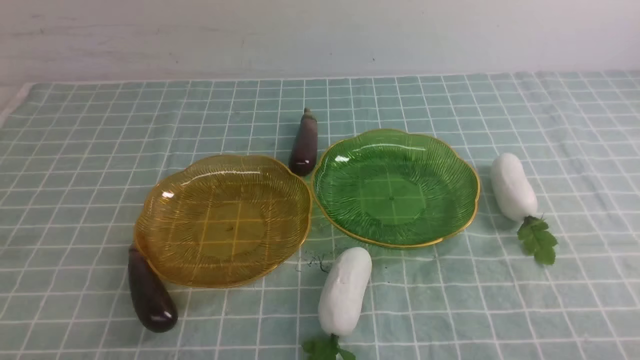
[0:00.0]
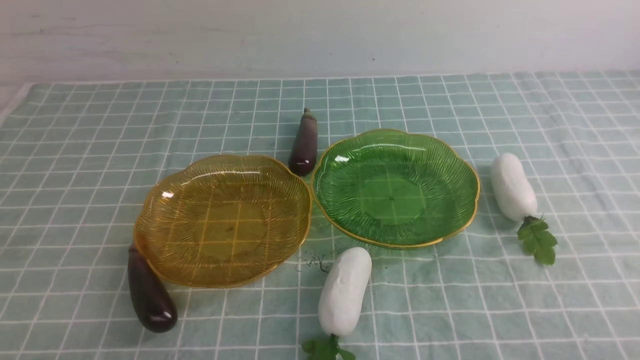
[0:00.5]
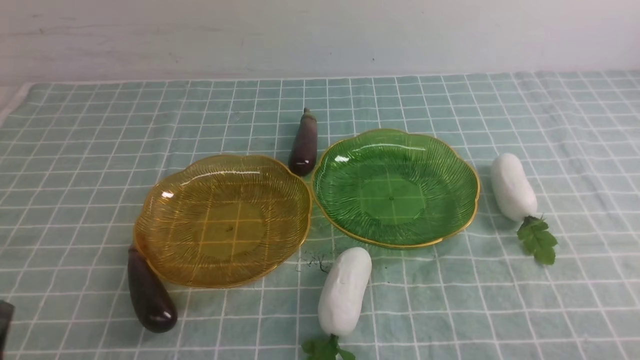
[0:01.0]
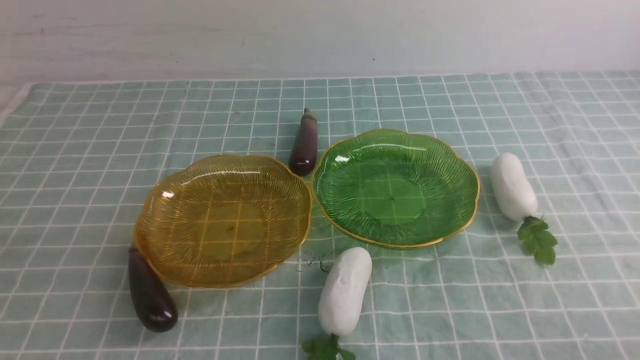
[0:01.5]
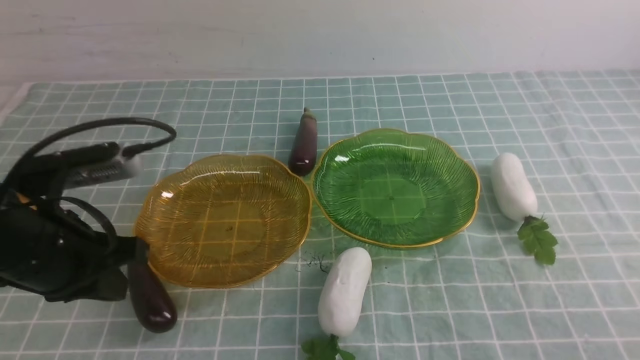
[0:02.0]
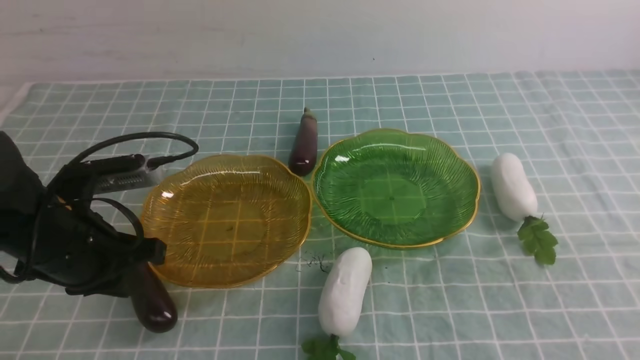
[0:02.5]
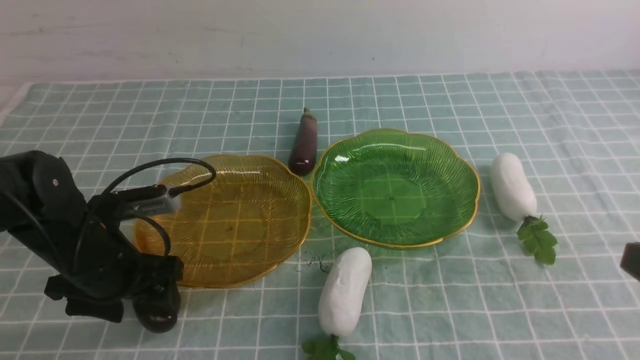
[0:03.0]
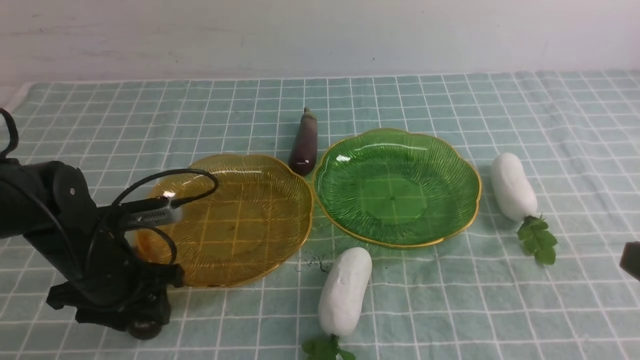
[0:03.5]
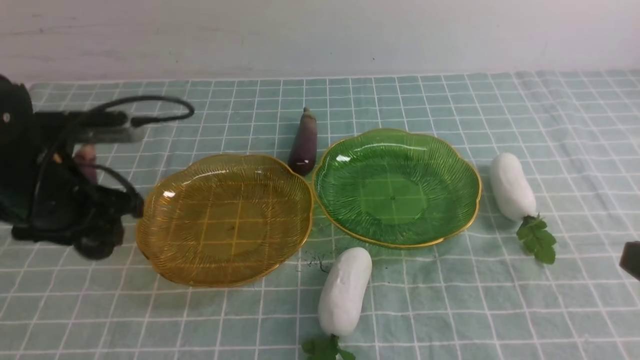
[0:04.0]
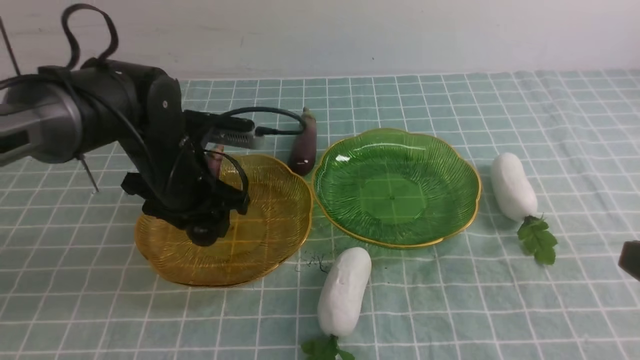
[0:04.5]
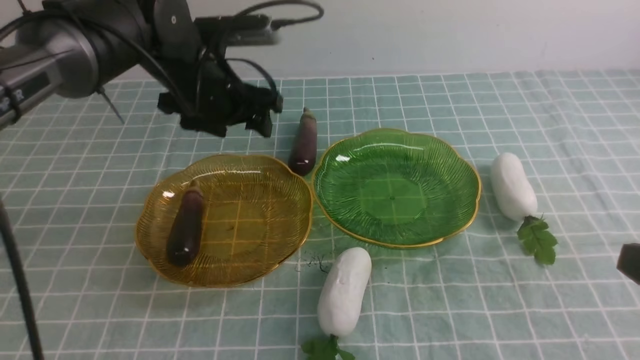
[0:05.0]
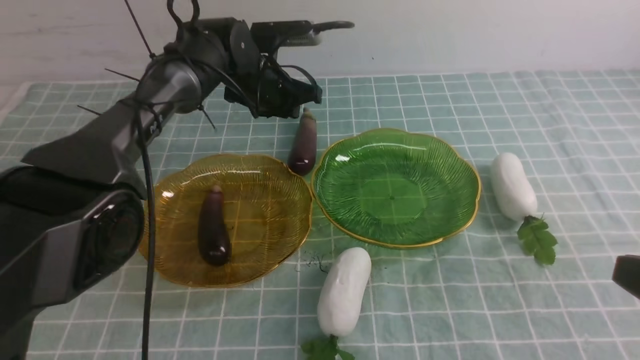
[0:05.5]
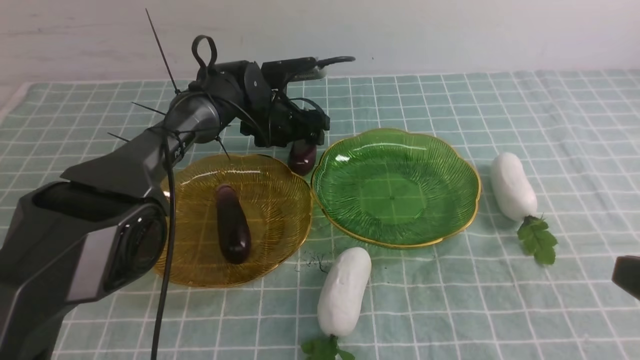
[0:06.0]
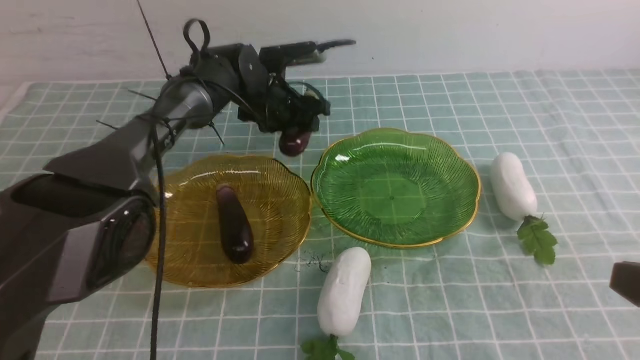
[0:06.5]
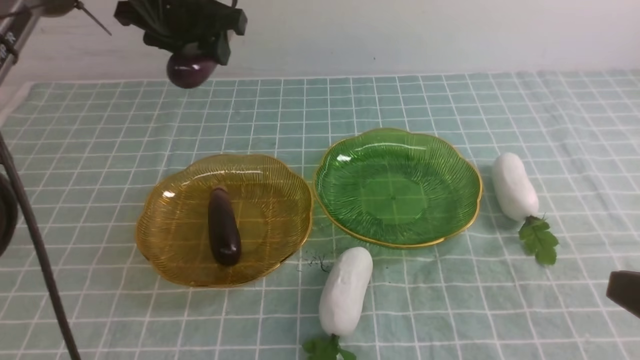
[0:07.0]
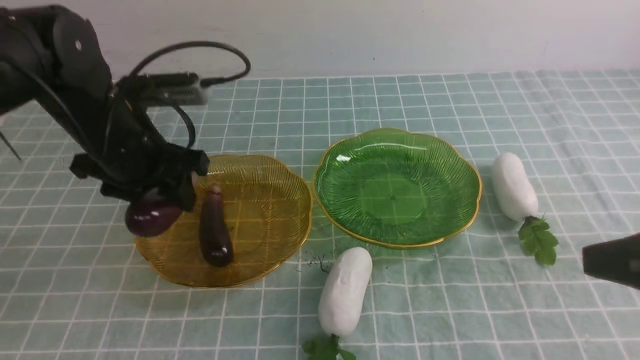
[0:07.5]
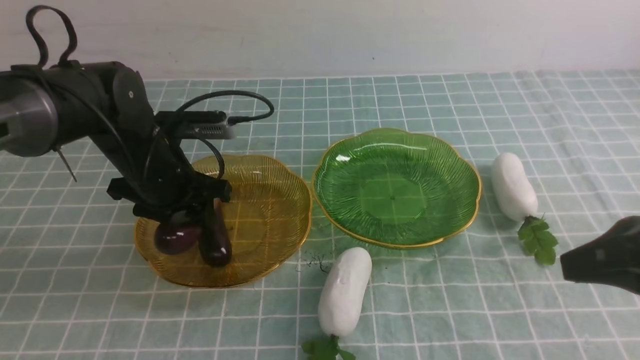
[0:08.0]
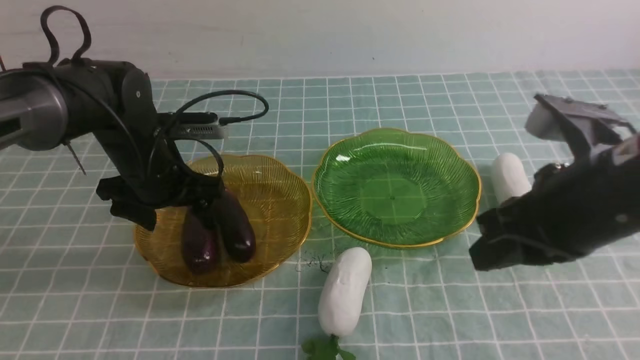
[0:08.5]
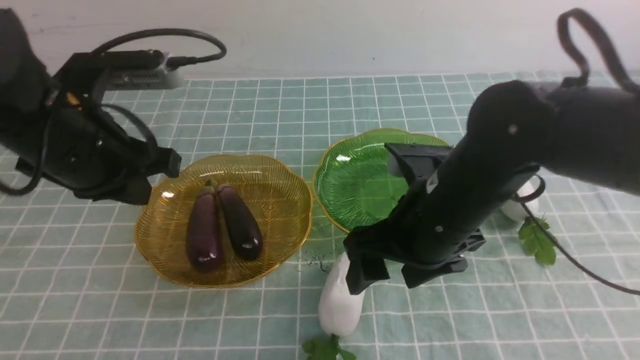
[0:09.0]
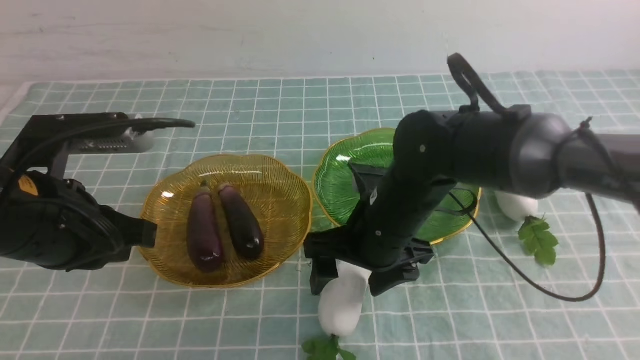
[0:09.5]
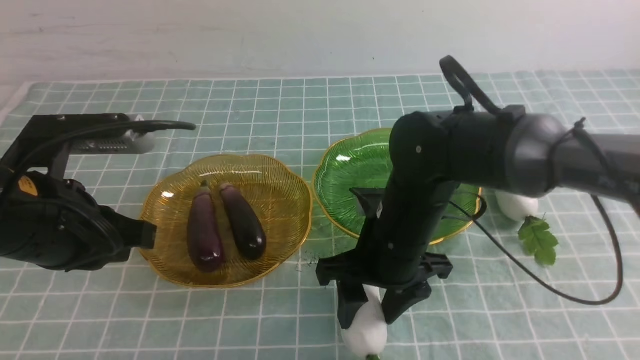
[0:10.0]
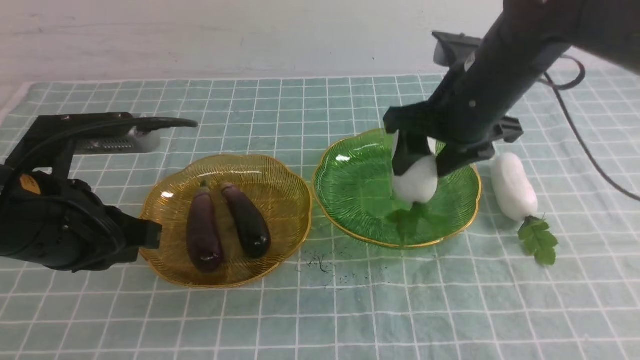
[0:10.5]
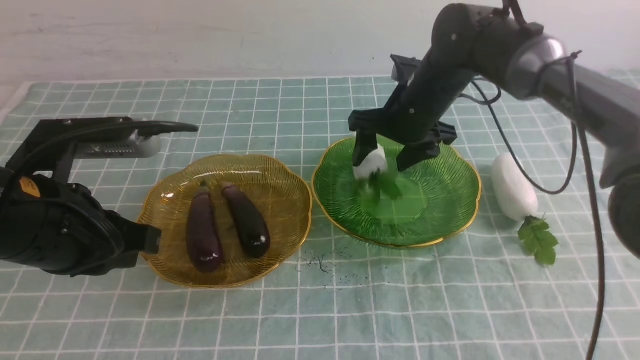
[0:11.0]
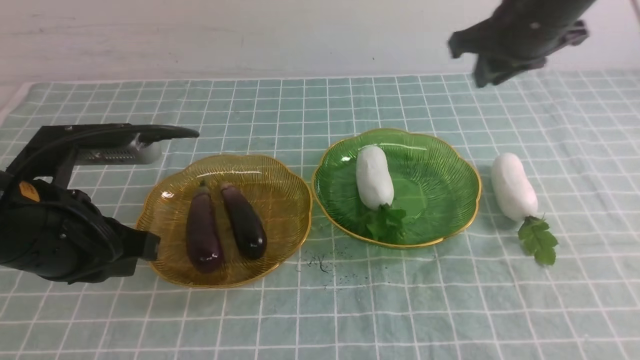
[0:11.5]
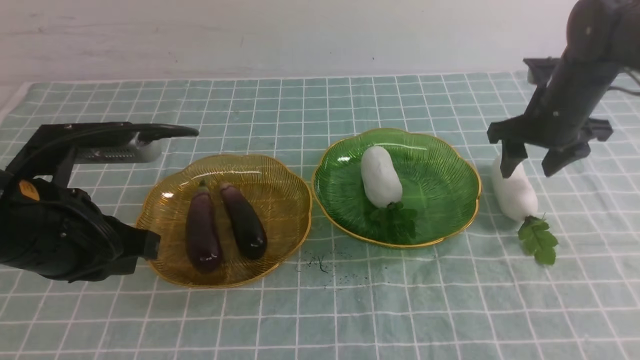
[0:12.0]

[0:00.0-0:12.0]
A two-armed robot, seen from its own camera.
Step, 0:00.0 to 0:08.0: use the left arm to grab an eggplant and put it into the left plate.
0:00.0 to 0:02.0: The left gripper goes about 20 cm forward and upward.
0:02.0 to 0:04.0: The left gripper shifts some 5 cm forward, travels downward and back again, some 10 cm each way, and opens up.
0:04.0 to 0:06.0: The left gripper shifts some 30 cm forward, to the right and downward.
0:06.0 to 0:08.0: The left gripper shifts some 20 cm backward and to the left, and travels upward and back again, approximately 20 cm each way. The right gripper is displaced forward by some 5 cm.
0:08.0 to 0:10.0: The left gripper shifts about 15 cm backward and upward, and closes its fingers, while the right gripper goes about 25 cm to the left, forward and downward, and opens up.
0:10.0 to 0:12.0: The right gripper shifts approximately 25 cm to the right and forward, and closes, then opens again.

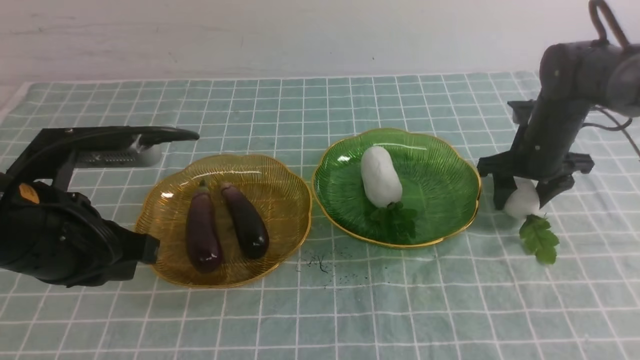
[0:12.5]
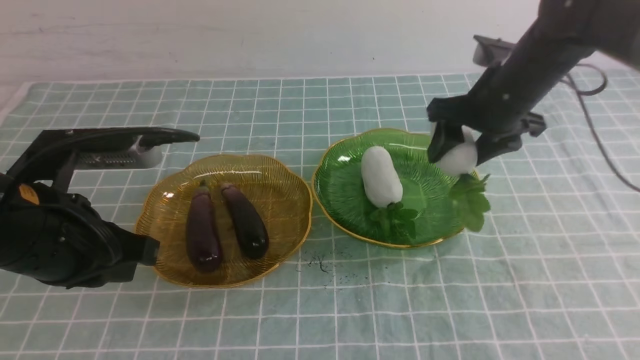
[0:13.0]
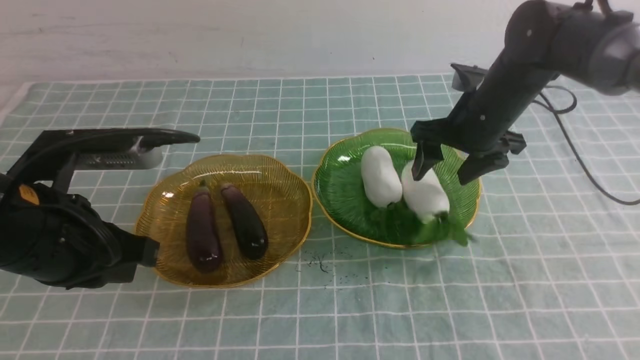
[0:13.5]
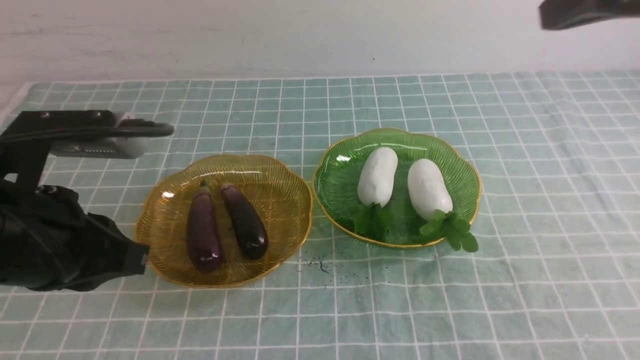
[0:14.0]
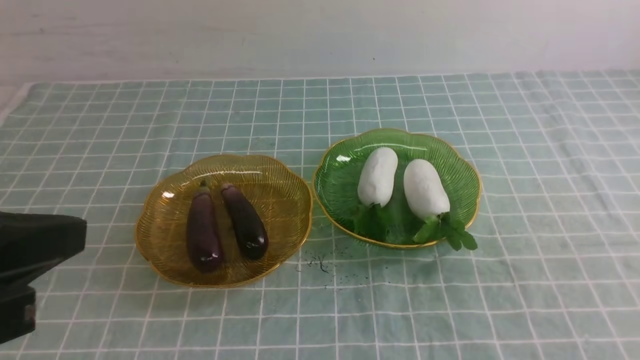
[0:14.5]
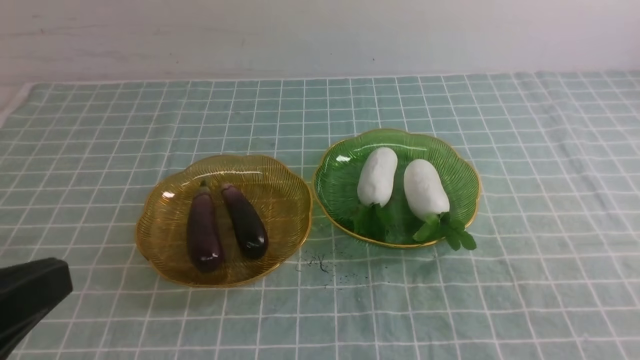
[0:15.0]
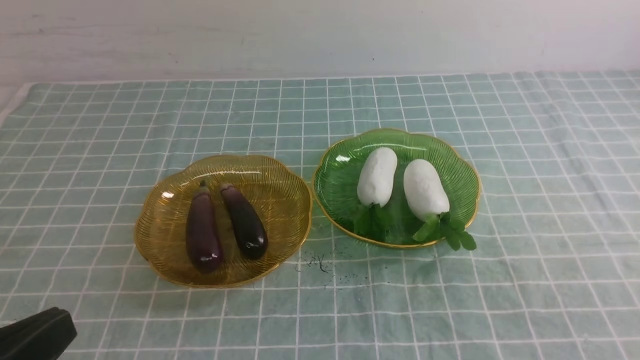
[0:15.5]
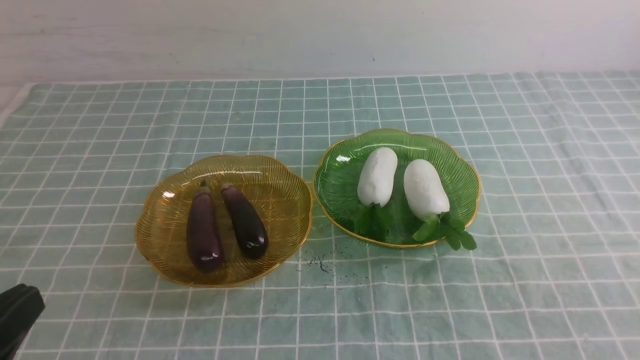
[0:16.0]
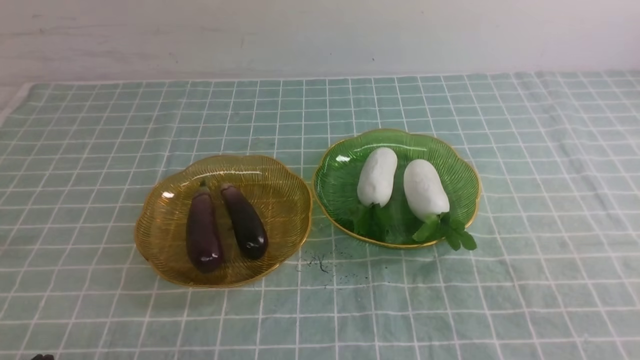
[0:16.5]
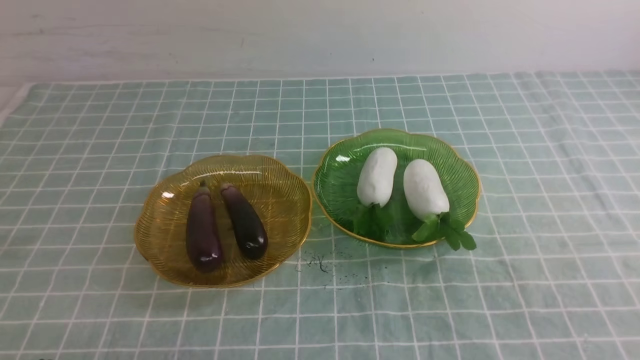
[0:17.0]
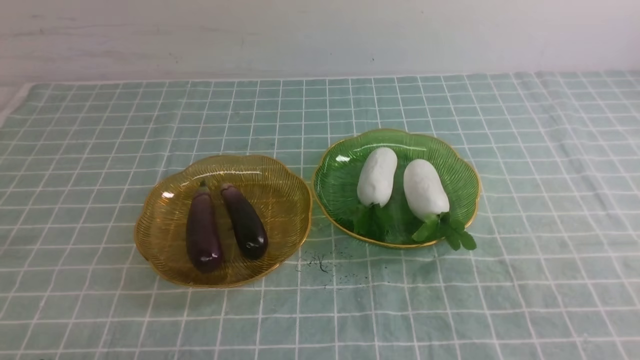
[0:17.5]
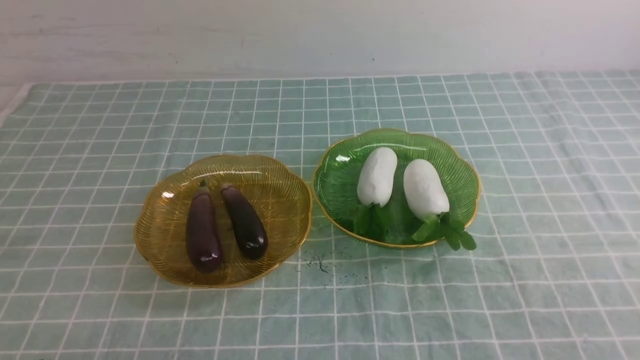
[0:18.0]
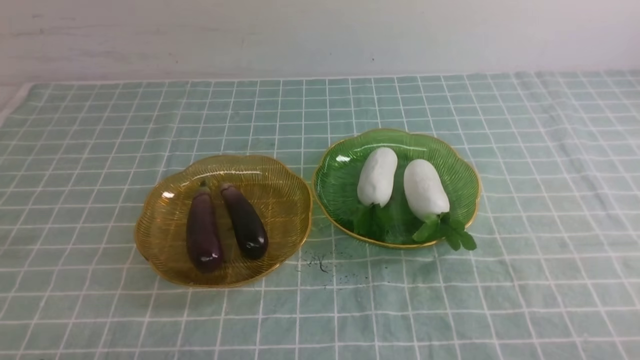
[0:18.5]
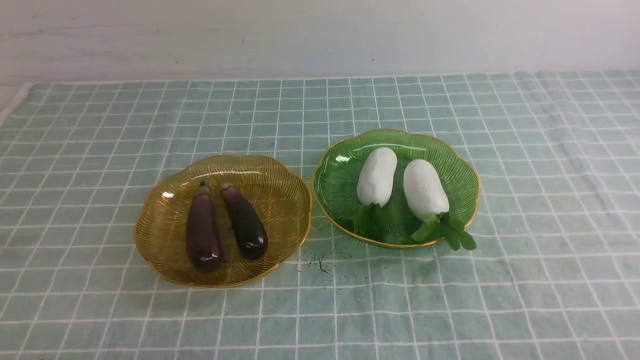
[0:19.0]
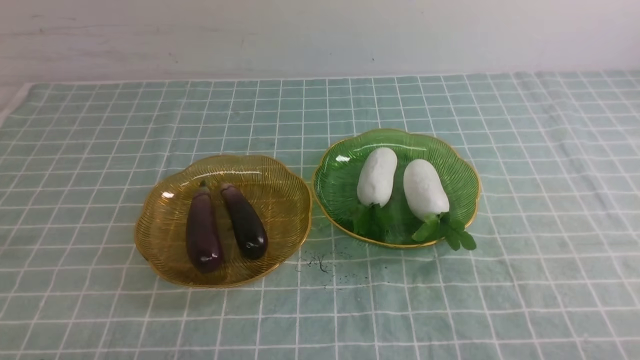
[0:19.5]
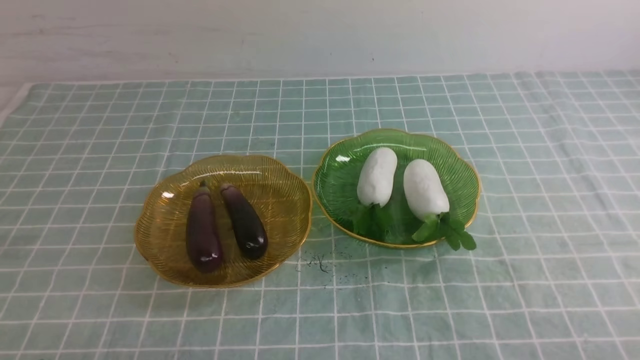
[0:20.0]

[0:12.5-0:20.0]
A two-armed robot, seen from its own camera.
0:12.5 to 0:14.5: The right gripper moves backward, roughly 40 cm, and closes up. The left gripper heads backward and upward, covering about 15 cm.
0:14.5 to 0:16.5: The left gripper shifts roughly 20 cm downward.
